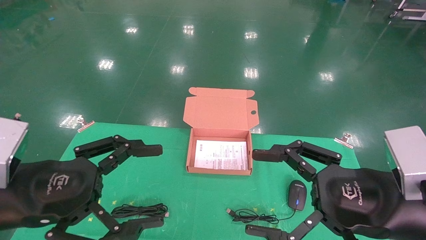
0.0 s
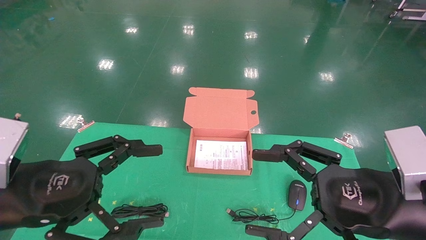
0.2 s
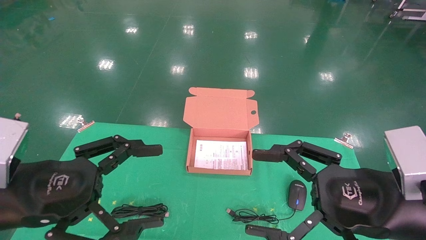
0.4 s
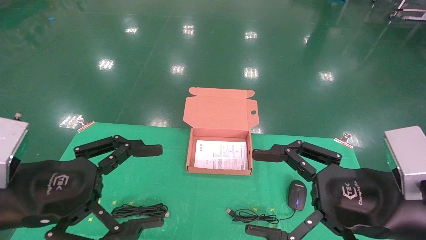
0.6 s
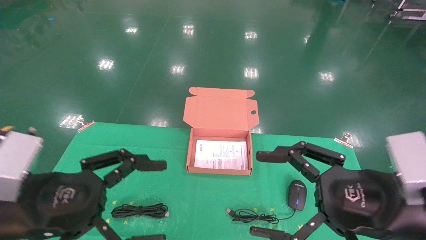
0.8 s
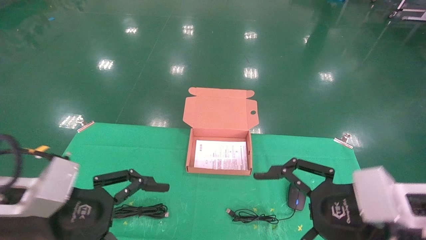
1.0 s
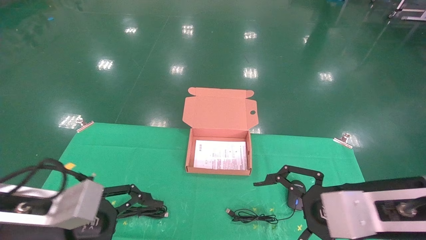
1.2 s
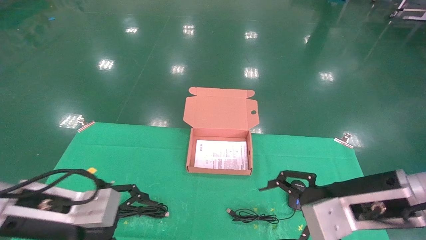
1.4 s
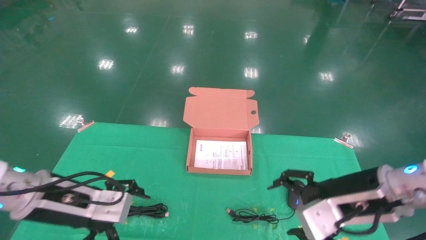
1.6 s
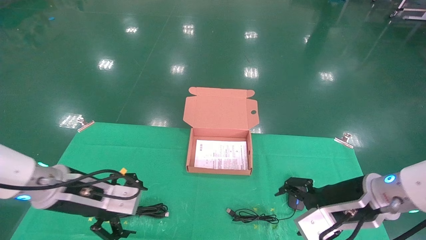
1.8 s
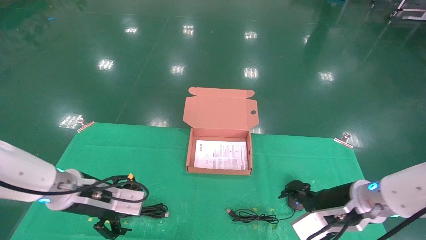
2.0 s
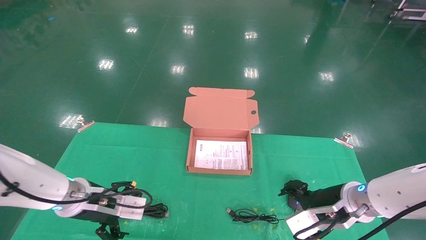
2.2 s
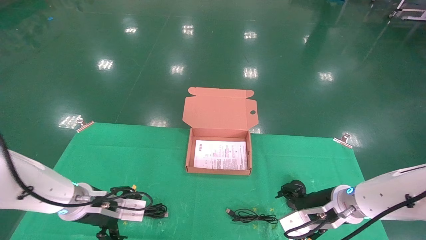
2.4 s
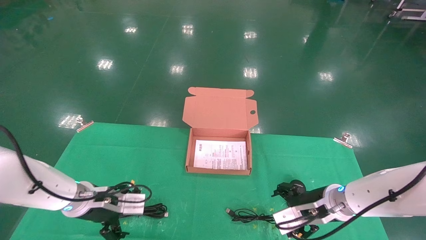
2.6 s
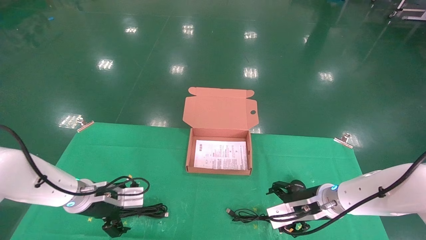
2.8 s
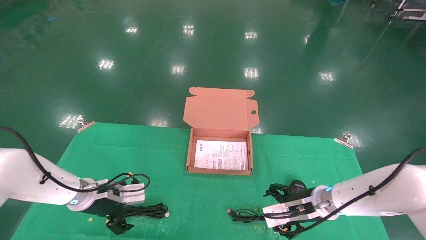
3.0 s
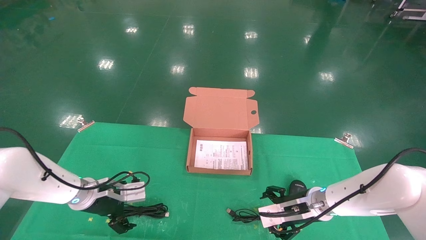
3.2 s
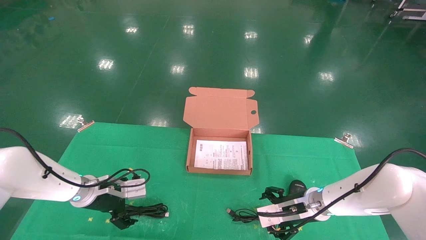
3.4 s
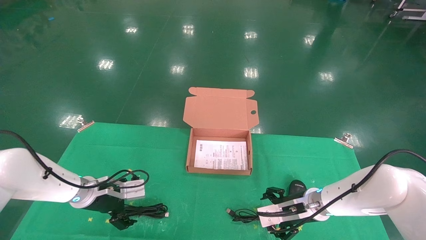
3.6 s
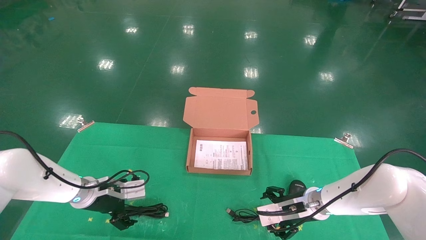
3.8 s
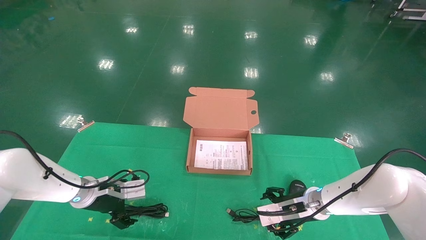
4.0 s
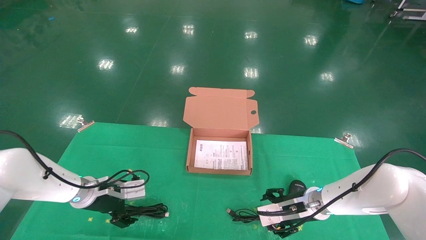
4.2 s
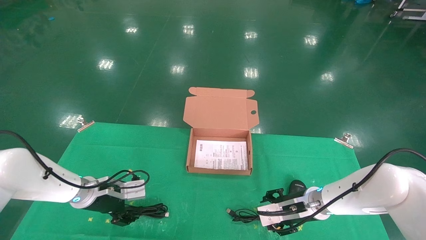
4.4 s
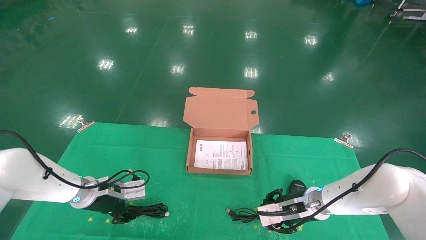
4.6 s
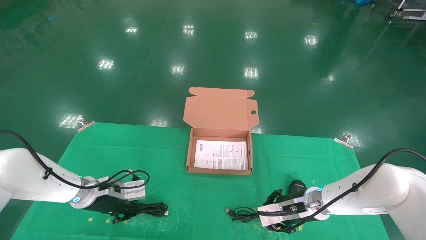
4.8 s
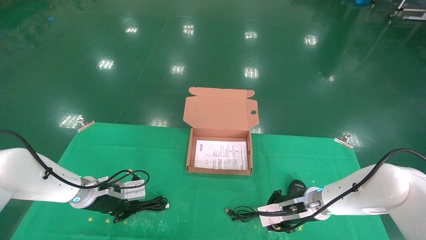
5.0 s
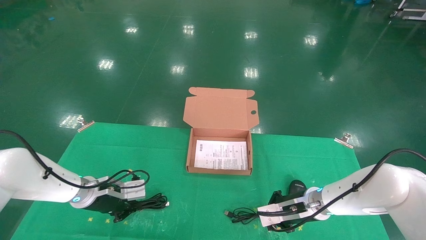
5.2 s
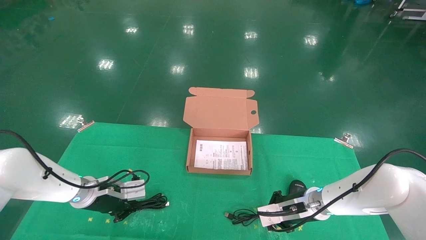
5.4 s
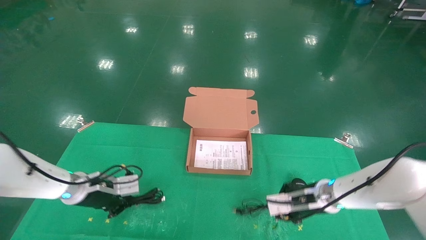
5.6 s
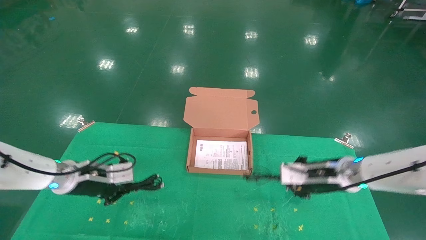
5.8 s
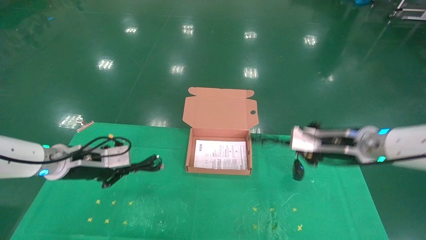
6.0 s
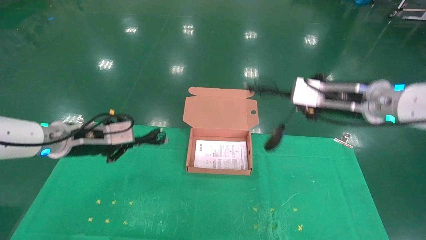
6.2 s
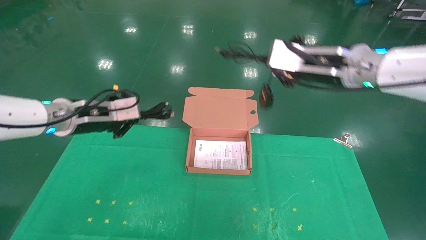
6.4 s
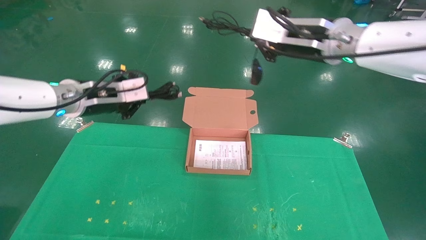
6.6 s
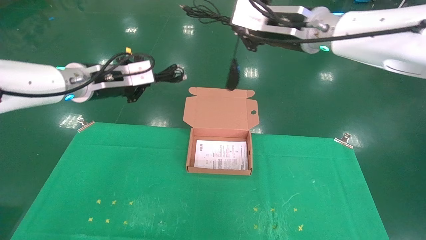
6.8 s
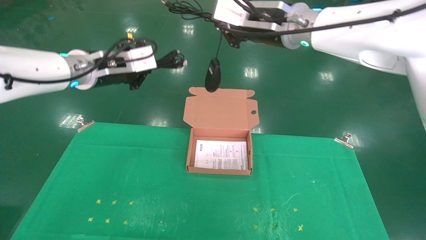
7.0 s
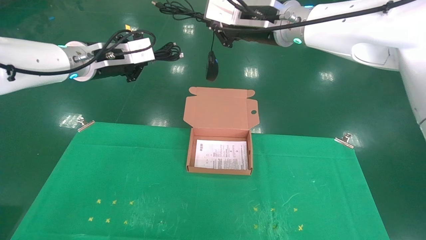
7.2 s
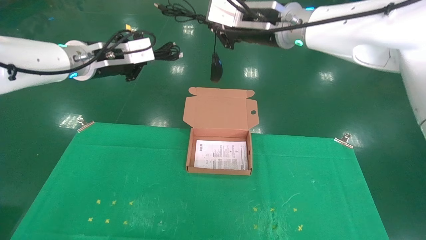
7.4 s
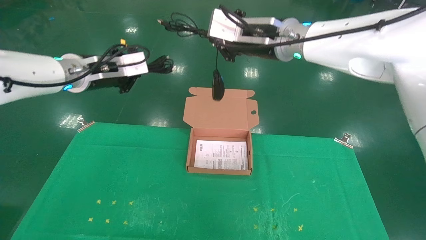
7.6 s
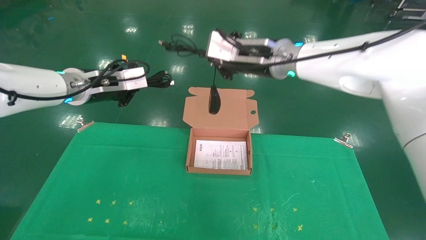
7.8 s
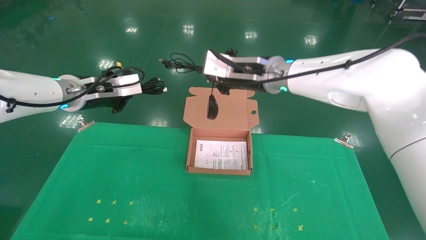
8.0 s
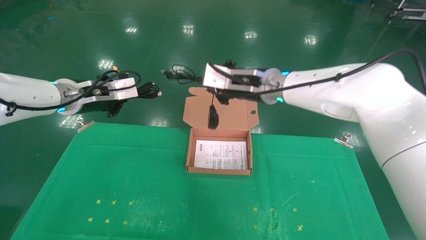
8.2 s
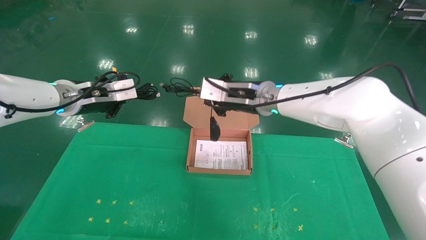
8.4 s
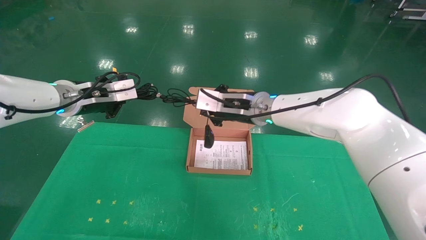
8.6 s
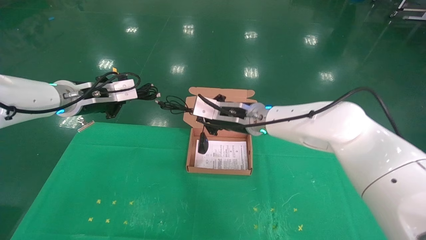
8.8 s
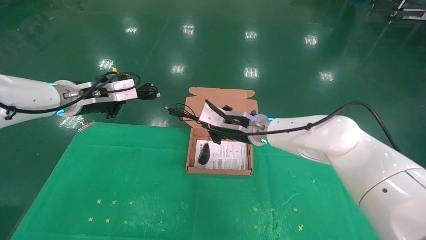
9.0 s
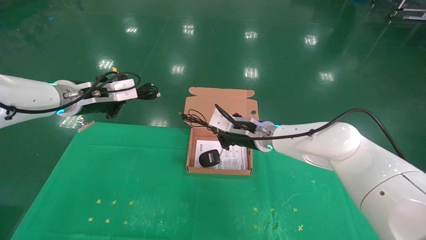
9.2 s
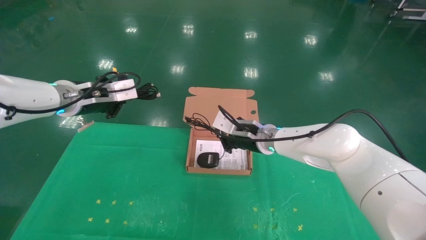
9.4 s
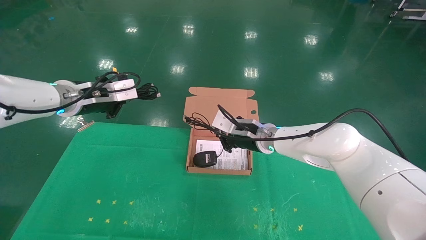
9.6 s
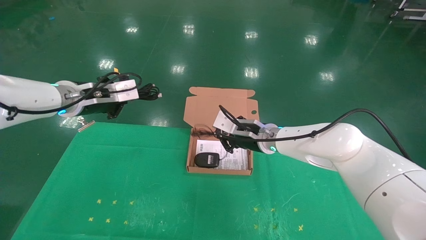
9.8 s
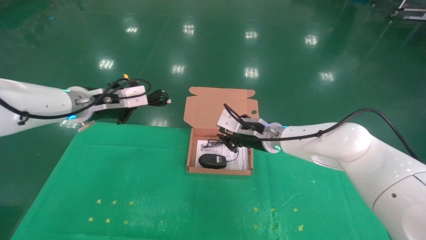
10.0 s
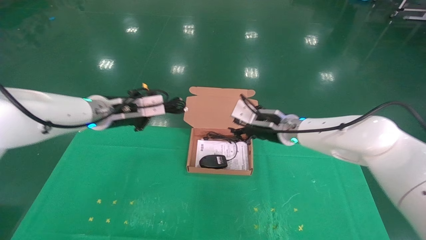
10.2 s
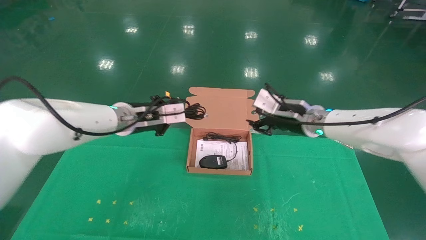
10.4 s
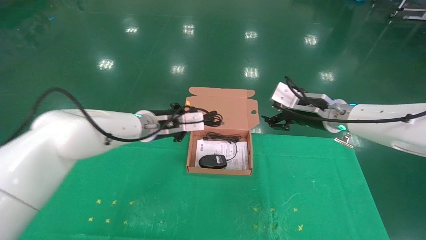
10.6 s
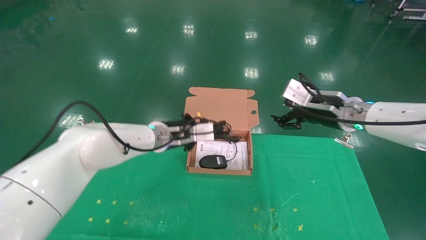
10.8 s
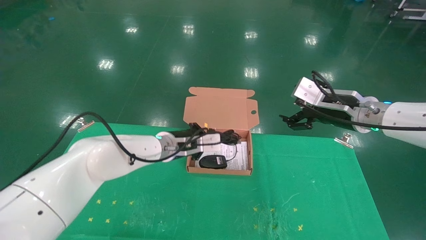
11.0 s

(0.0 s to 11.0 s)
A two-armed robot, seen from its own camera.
Task of the whole recording: grasp data cable left put into box grasp mouse right put into box.
Step, 1.2 s - 5.0 s: Grab and pick up both the mouse and power cord from the accessory packaging area at the same time.
0.0 s - 1.6 s: The left gripper goes roughly 10 cm forward and downward. The right gripper is displaced forward by about 10 cm.
1.6 s - 3.2 s: Both grippers move forward and downward, some 15 cm.
3.2 s - 4.8 s: The left gripper closes up; the right gripper closes up.
4.8 s - 6.2 s: The left gripper travels upward by roughly 15 cm, and closes up; the right gripper heads upward, covering roughly 25 cm, and closes its fingers.
6.2 s - 7.8 s: The right gripper travels to the left and upward by approximately 15 cm, while the left gripper goes roughly 10 cm upward.
7.8 s - 9.4 s: The right gripper heads downward, covering some 20 cm.
9.4 s - 11.0 s: The left gripper travels to the right and downward by about 25 cm, while the right gripper is displaced to the right, upward and backward by about 20 cm, and opens.

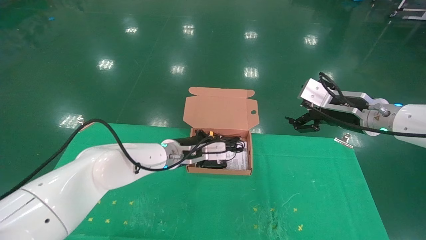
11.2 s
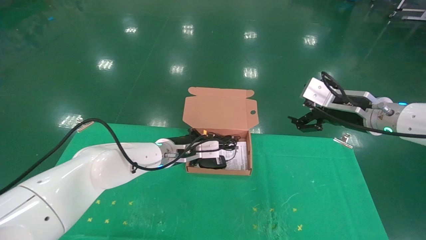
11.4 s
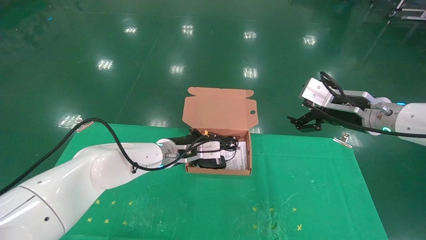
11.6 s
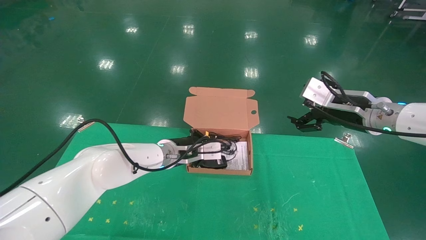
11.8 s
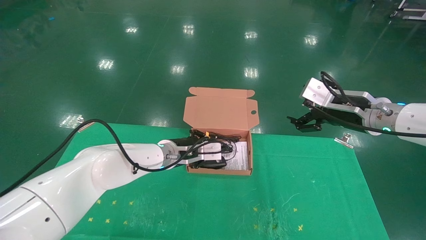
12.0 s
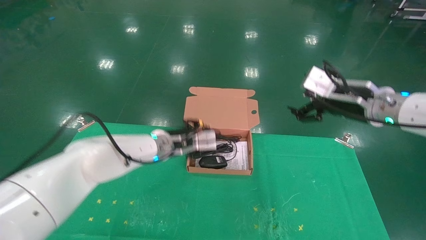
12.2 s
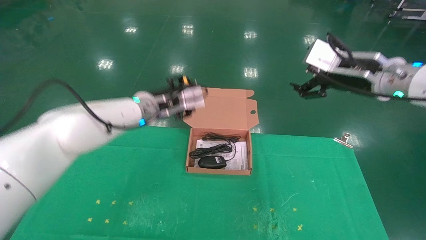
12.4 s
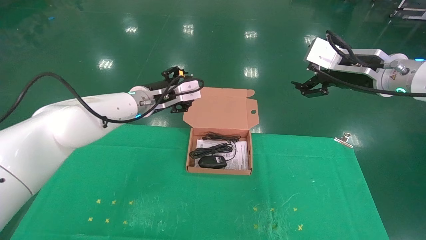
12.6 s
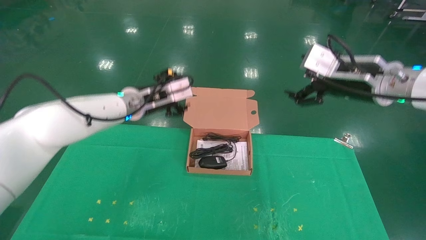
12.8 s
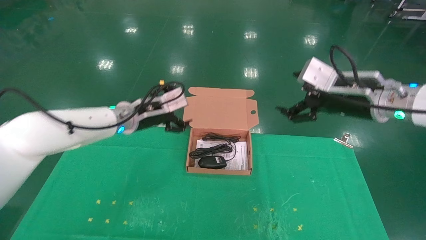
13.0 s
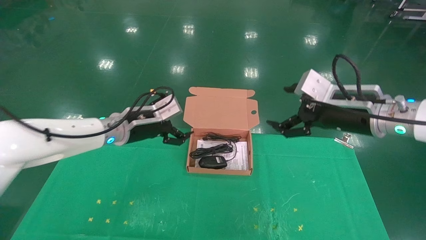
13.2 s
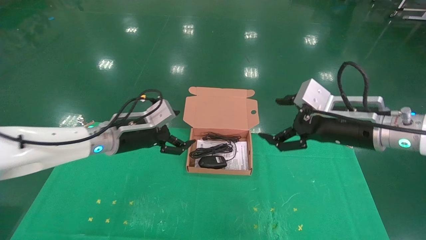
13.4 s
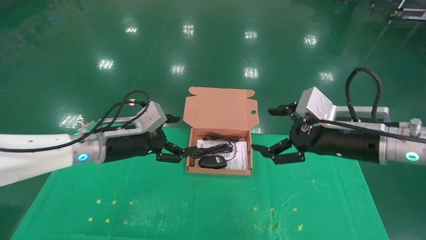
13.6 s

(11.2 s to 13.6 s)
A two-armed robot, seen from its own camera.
Task of the whole recording: grasp data cable left put into box grasp mouse right put into box.
11.2 s - 12.4 s: The left gripper goes roughly 10 cm upward, and opens its fingers, while the right gripper is displaced upward by some 5 cm.
12.4 s - 13.6 s: The right gripper travels downward and backward by approximately 10 cm. The left gripper goes roughly 10 cm backward and to the left, and opens.

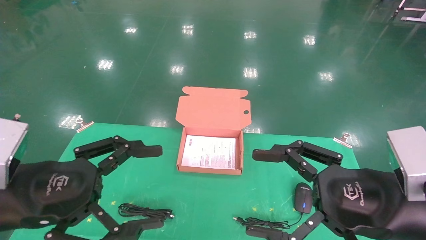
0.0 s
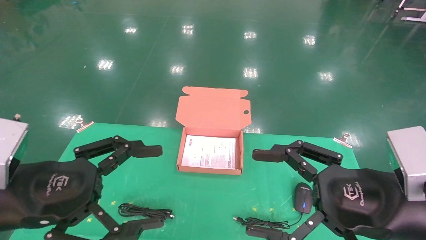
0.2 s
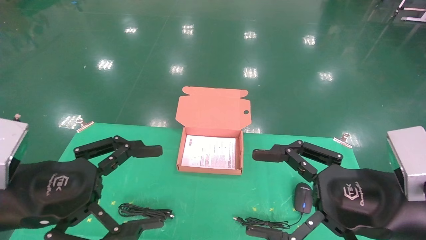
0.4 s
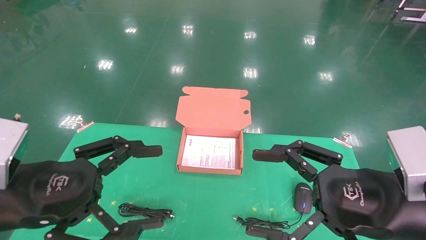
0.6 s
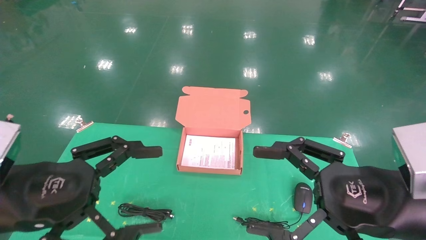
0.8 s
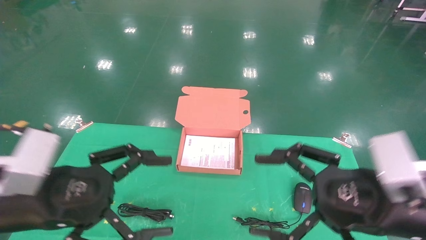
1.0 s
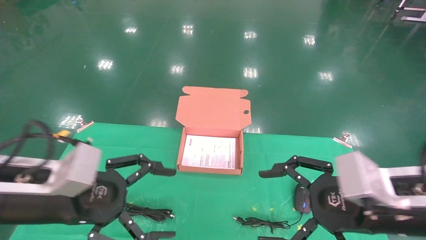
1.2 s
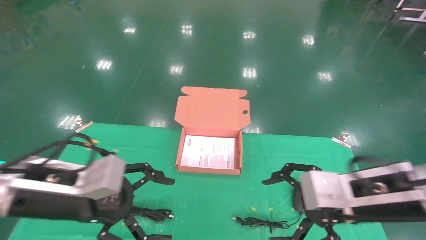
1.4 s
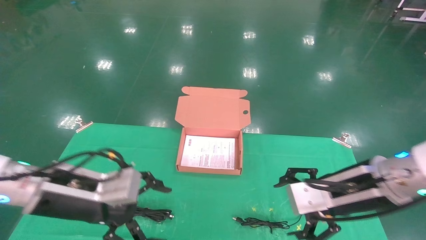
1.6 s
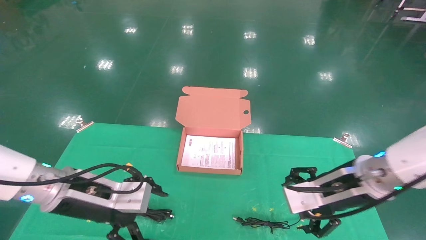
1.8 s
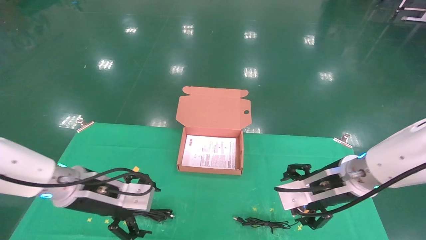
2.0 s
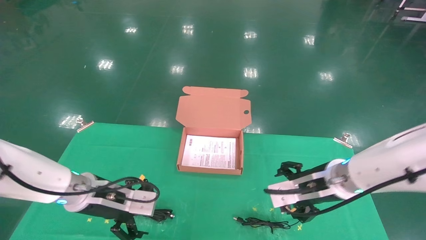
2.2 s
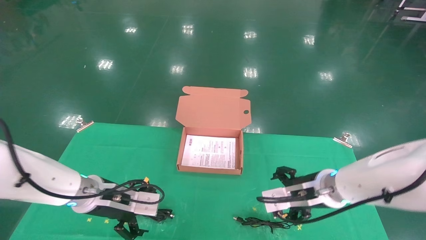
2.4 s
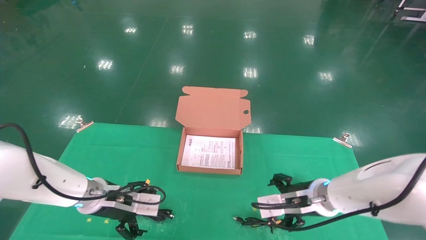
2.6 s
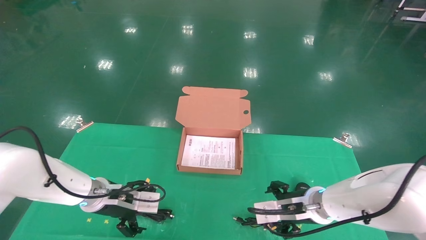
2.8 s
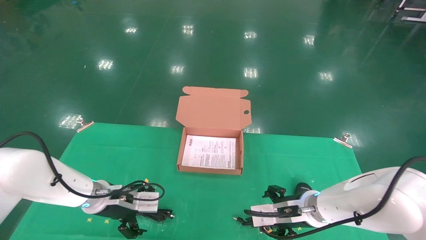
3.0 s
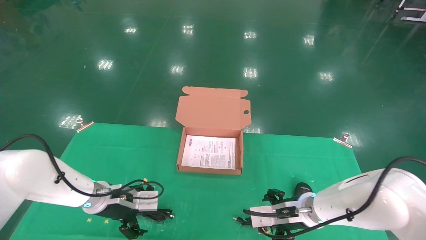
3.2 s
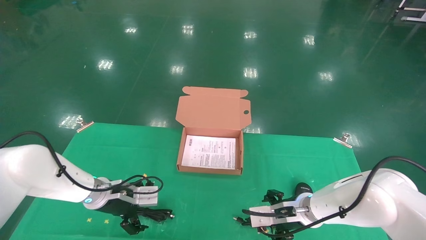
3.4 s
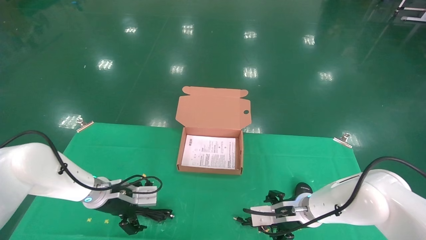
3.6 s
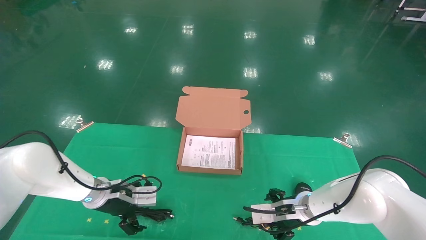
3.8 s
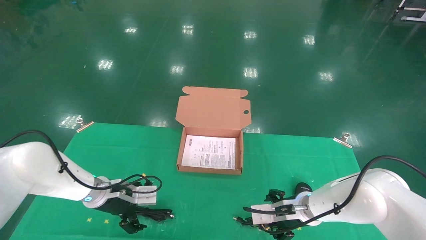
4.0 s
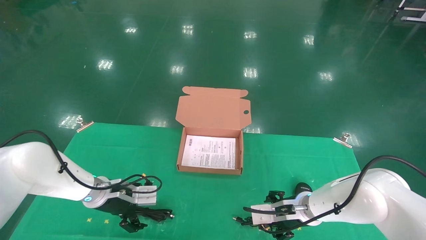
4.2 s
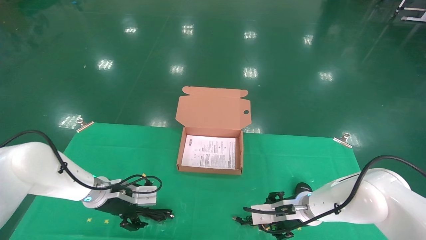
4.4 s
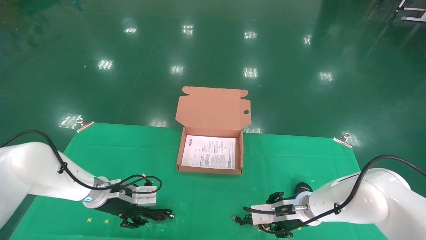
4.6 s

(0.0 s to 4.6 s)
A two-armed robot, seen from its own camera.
Task of the whole recording: grasp data cable left put into box grasp mouse right put into box.
0.0 s - 1.6 s: Both grippers travel together forward, about 10 cm.
1.6 s - 3.0 s: The right gripper heads downward and forward, covering approximately 15 cm, while the left gripper is displaced forward and downward by about 15 cm.
3.0 s - 4.6 s: The left gripper closes up. Meanwhile the right gripper closes up.
